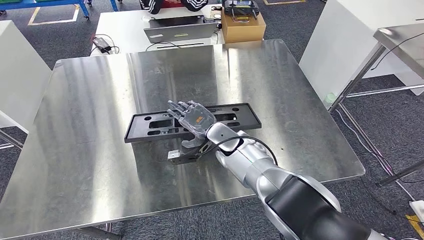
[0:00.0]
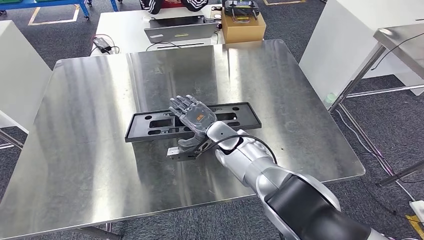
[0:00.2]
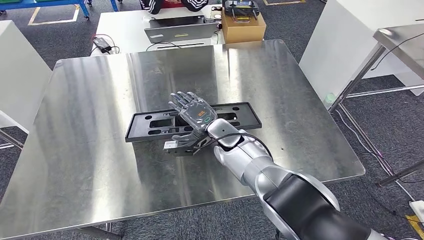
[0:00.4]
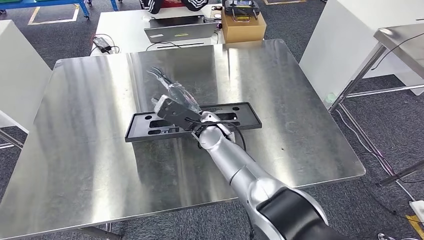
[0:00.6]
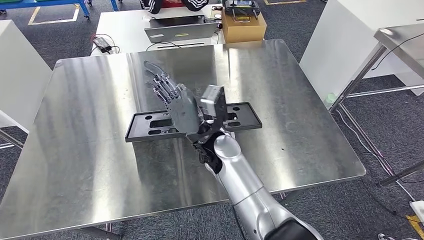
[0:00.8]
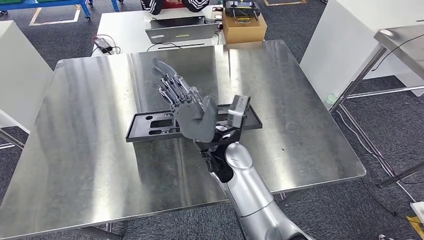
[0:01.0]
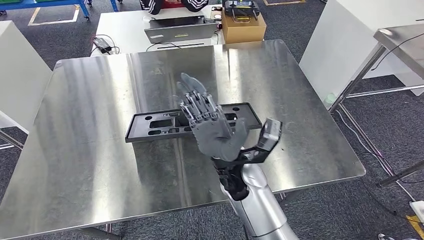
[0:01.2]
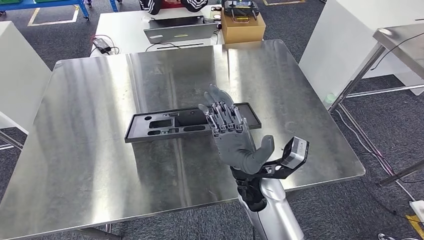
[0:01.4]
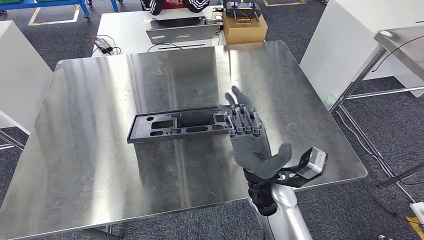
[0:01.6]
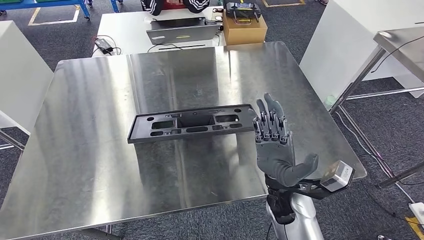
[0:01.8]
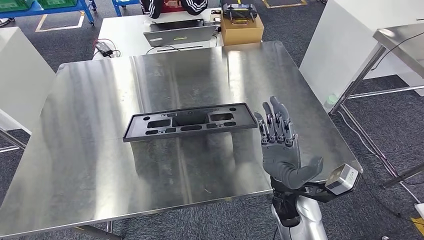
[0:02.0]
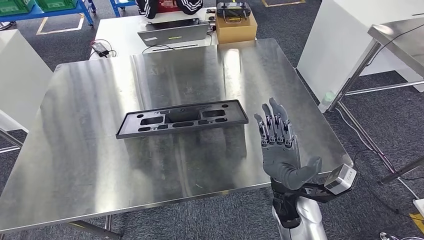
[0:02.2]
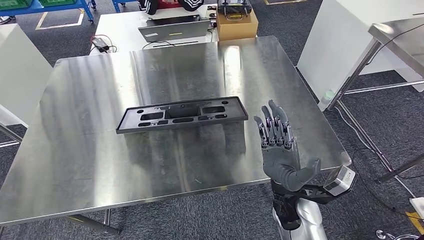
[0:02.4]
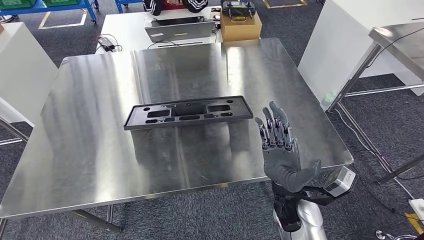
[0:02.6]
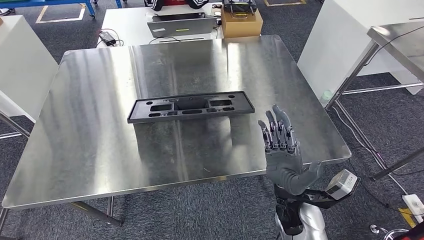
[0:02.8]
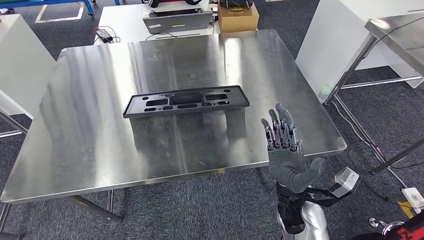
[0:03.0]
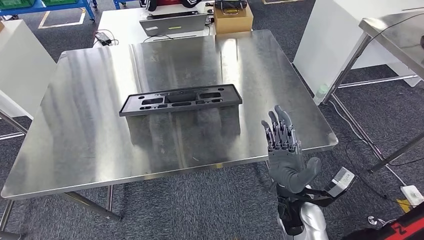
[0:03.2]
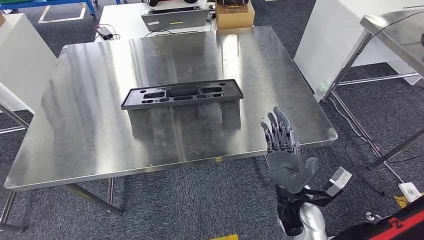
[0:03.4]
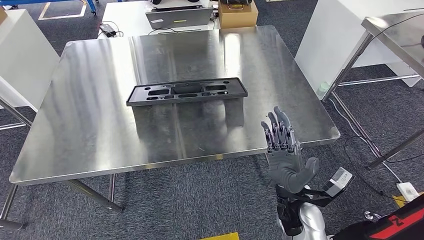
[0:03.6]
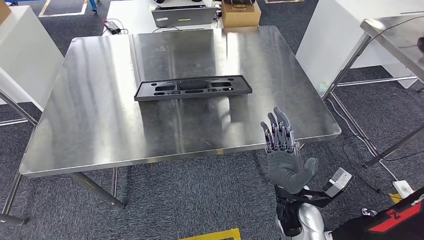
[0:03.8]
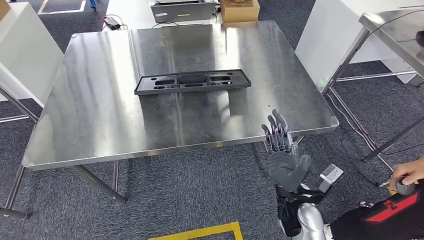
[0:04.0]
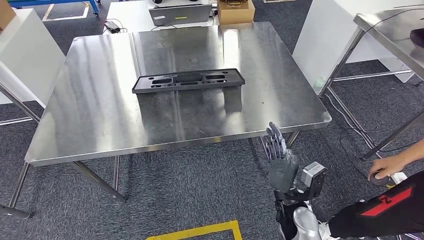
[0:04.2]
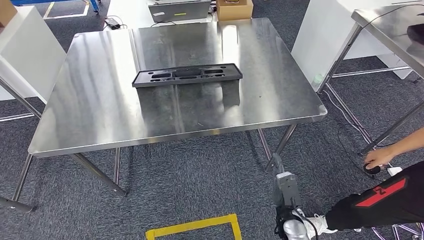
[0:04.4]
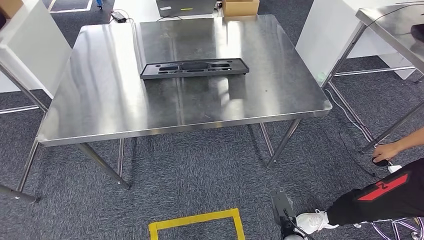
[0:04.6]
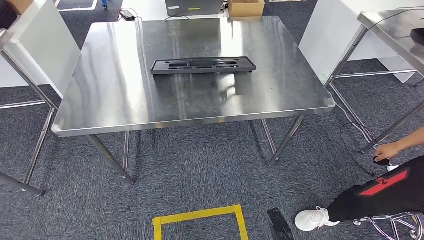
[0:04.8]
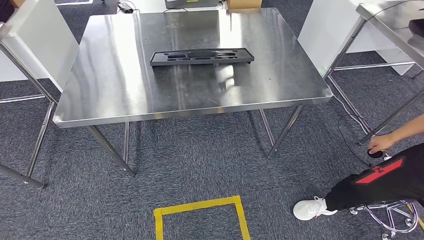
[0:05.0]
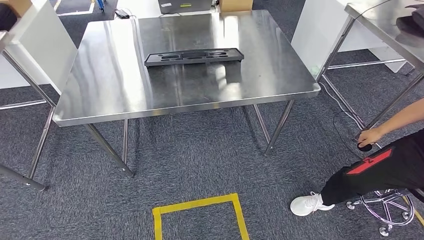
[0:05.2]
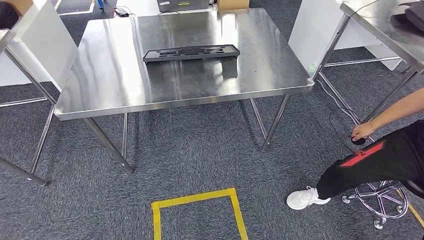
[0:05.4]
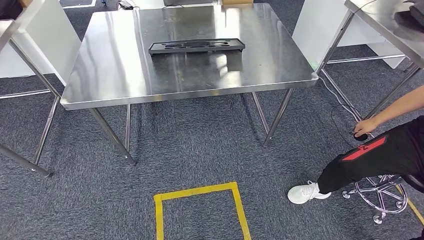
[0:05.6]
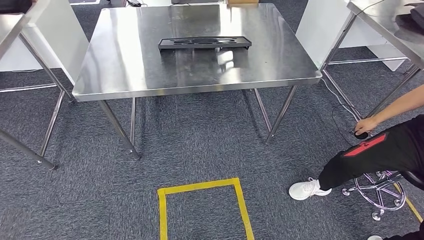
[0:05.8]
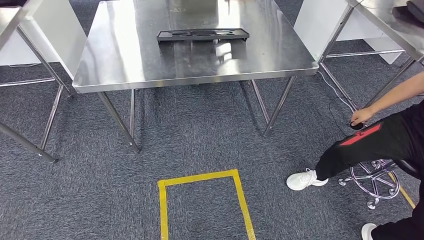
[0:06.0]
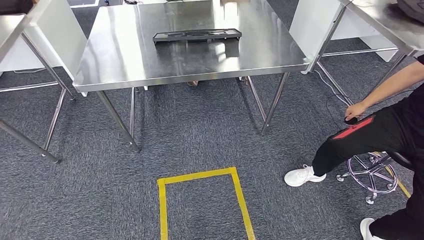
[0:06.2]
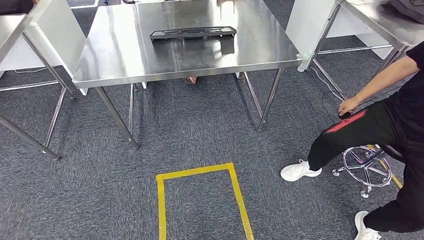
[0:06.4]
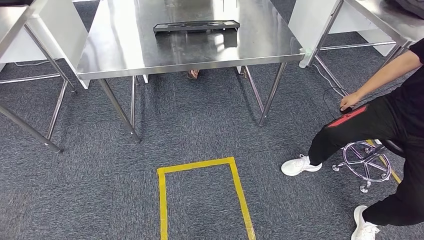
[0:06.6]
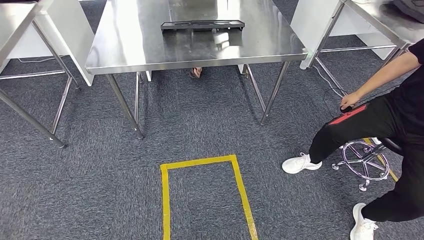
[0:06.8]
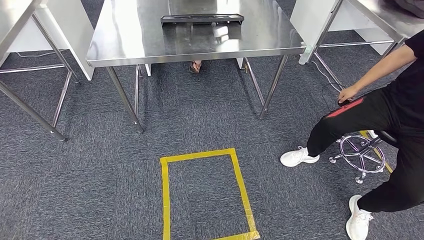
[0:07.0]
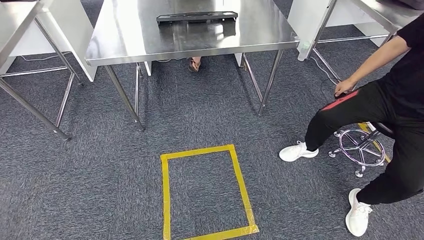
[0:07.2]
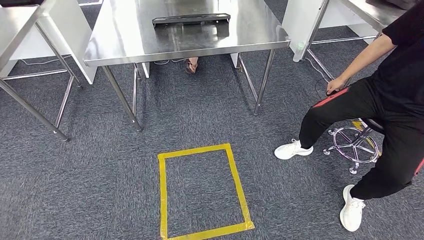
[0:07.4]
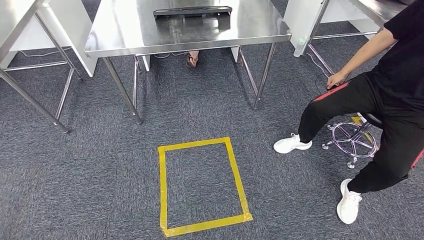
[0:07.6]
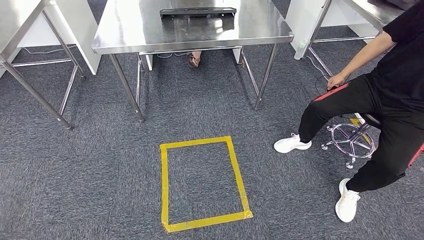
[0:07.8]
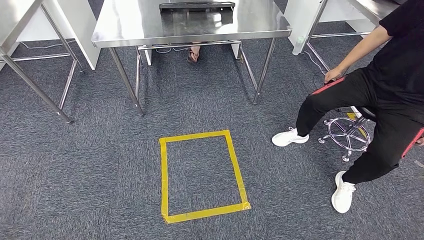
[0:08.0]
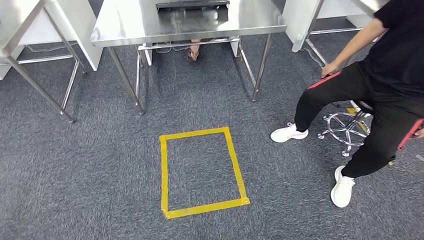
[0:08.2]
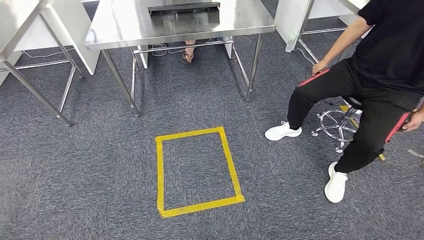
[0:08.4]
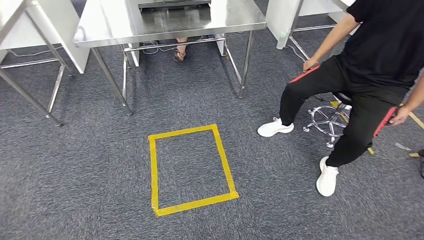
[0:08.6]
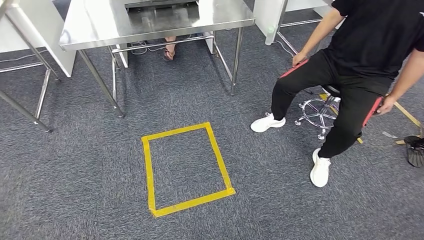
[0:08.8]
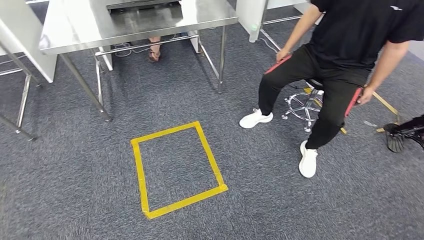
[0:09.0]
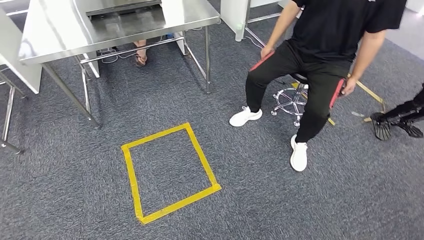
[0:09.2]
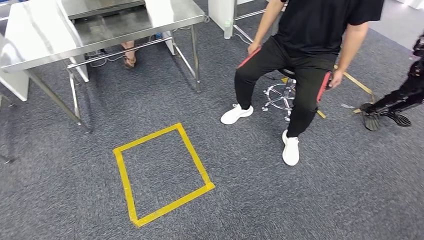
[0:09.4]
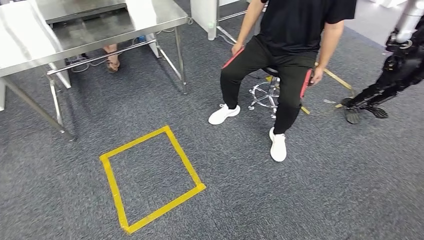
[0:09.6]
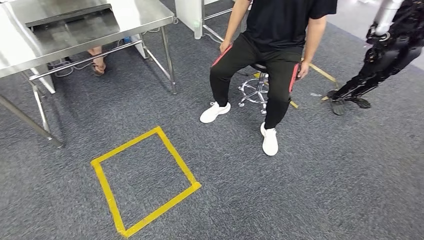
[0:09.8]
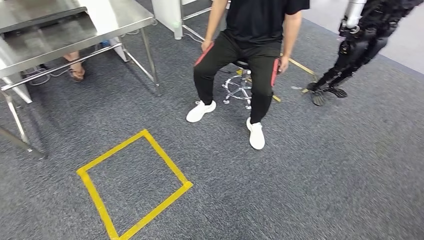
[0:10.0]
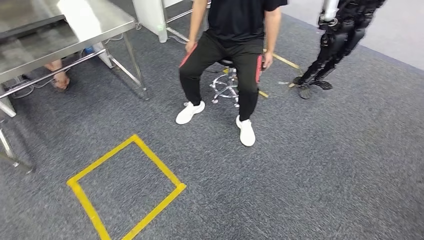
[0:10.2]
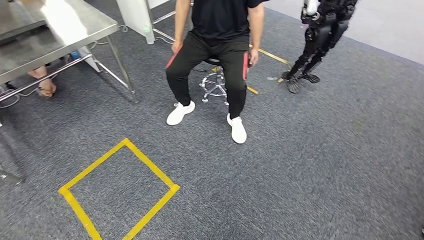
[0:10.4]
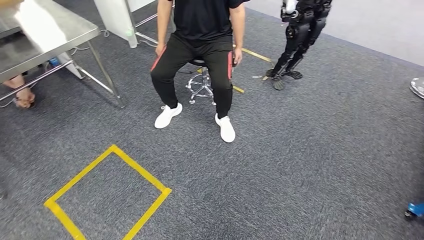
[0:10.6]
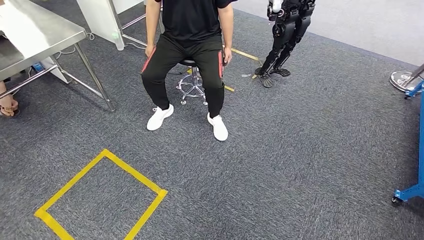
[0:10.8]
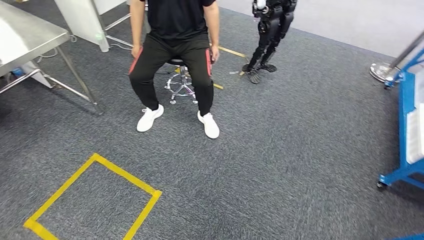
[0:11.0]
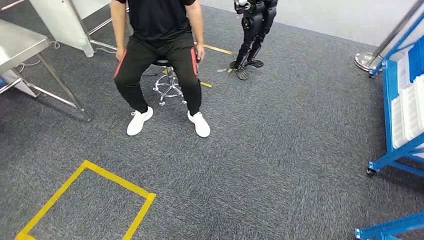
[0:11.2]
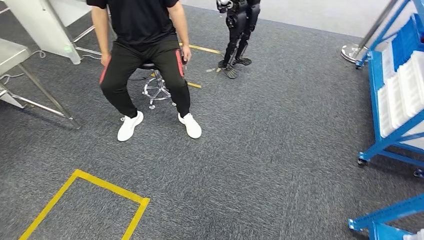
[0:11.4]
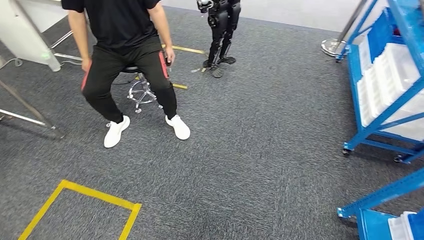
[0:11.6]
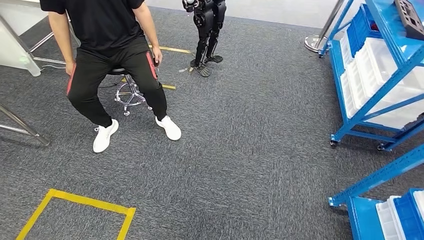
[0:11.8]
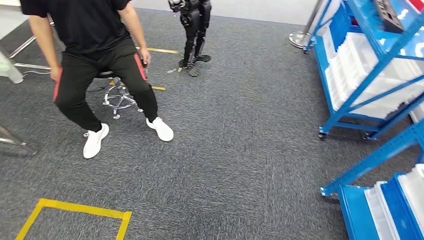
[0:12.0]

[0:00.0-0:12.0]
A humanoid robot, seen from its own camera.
Step, 0:00.0 to 0:06.6: Insert the large material into the corresponding slot on the workbench.
0:00.0 to 0:01.6: The right hand goes about 15 cm backward and to the right.

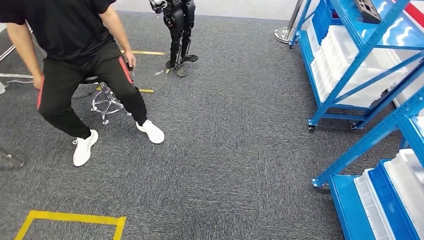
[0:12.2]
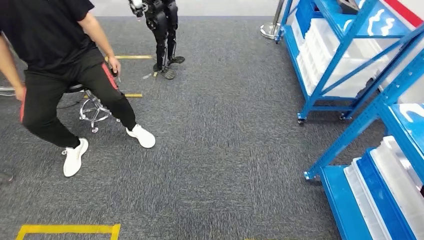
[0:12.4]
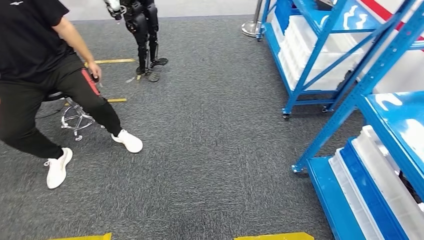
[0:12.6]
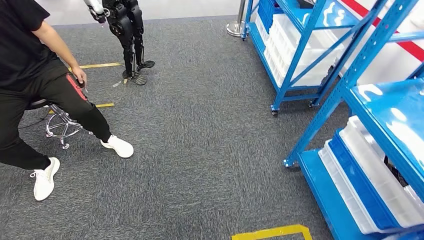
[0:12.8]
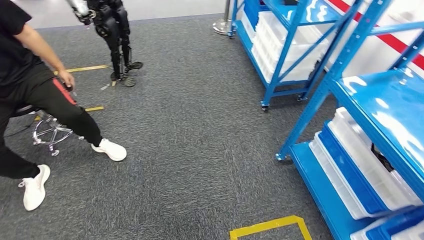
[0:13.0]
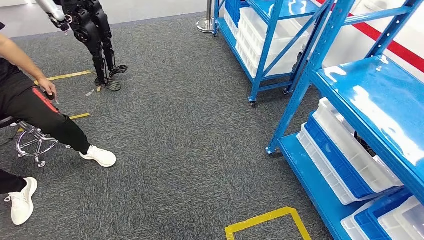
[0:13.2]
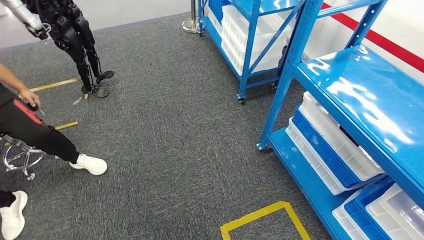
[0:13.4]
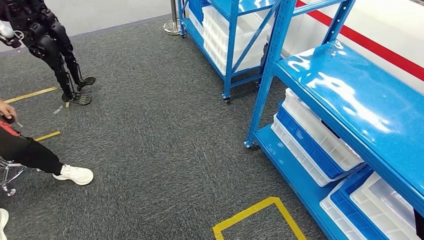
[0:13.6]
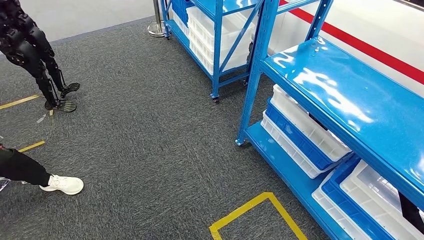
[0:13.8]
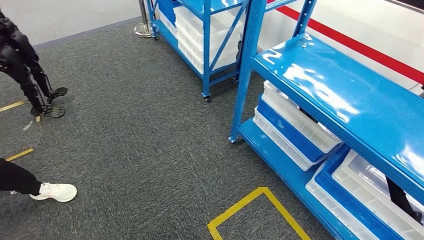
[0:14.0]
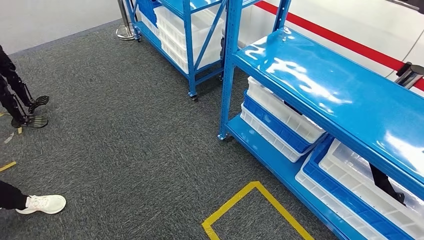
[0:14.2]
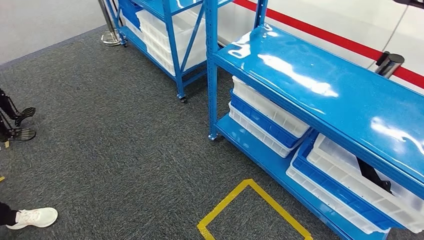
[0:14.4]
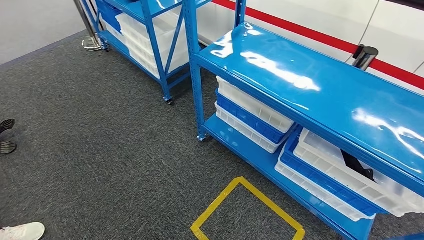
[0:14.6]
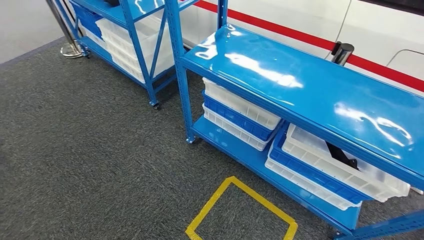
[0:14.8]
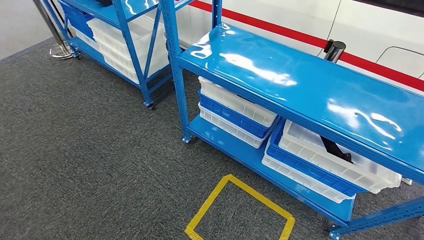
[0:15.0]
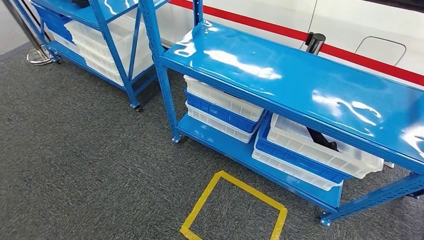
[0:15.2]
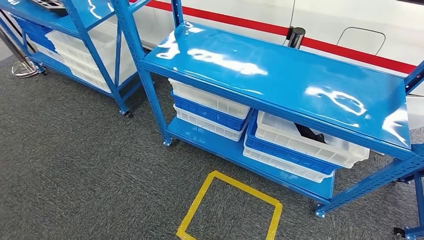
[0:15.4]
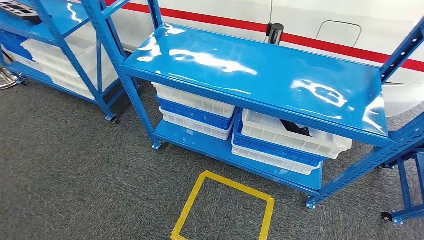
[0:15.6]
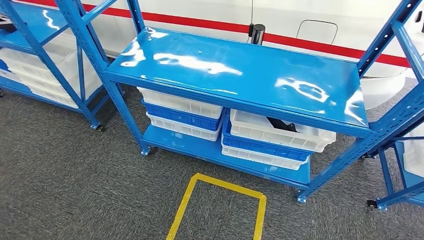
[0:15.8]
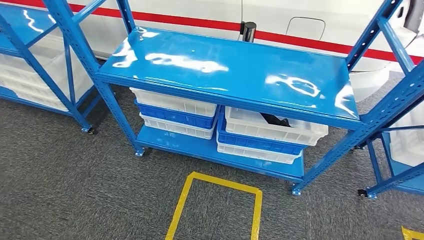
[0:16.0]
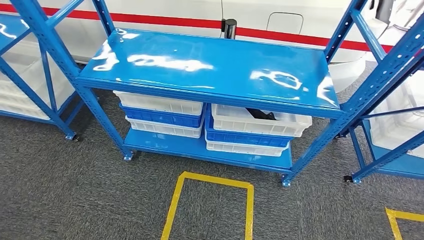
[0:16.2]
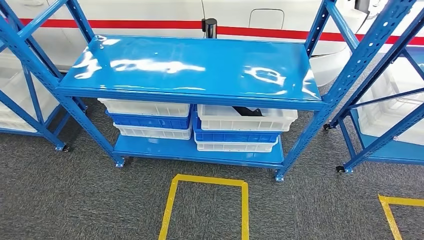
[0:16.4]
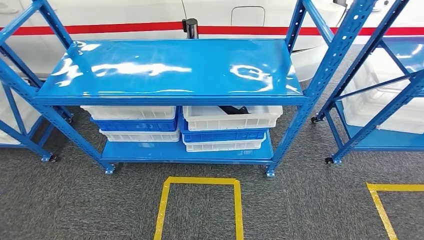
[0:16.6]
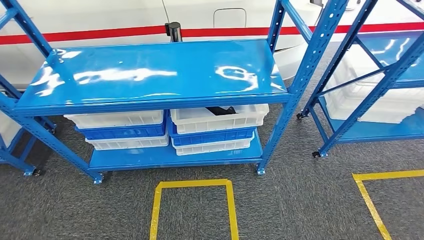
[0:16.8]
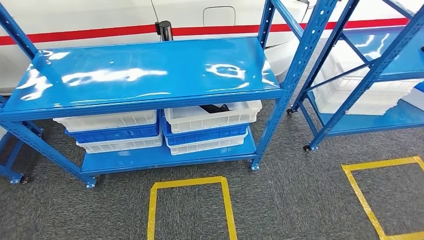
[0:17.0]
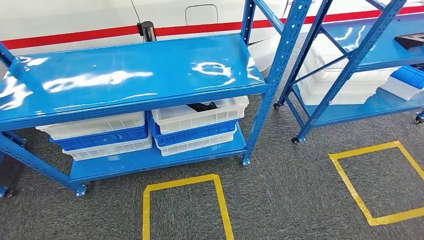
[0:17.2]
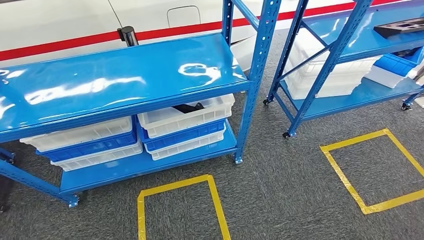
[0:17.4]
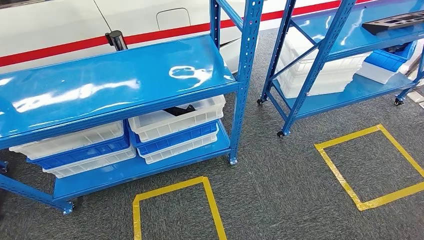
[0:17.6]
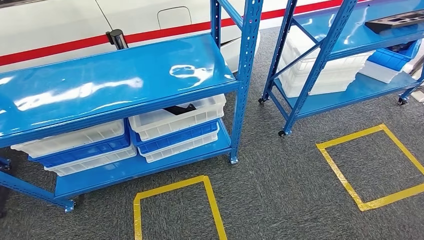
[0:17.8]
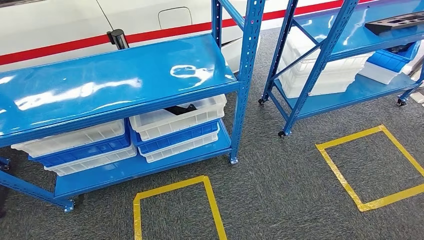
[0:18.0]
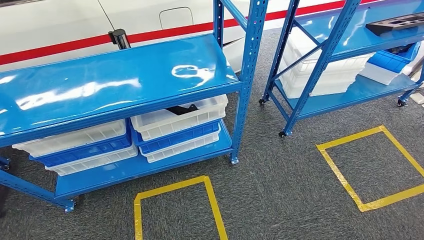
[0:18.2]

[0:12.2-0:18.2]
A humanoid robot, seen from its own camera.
Step, 0:12.2 to 0:18.2: Move to the initial position of the shelf.
